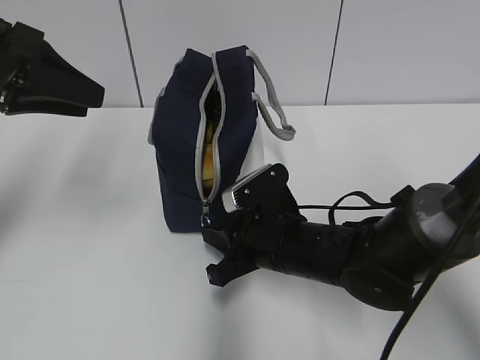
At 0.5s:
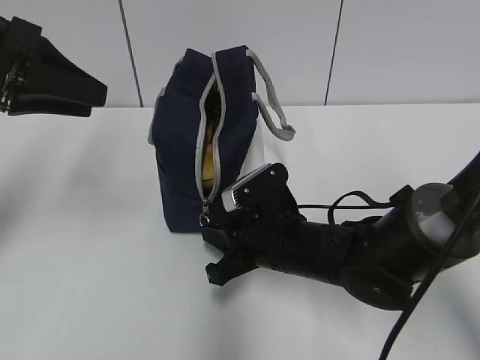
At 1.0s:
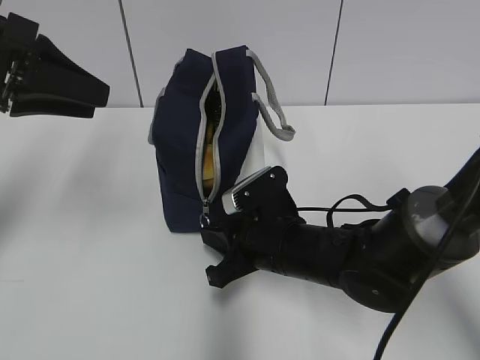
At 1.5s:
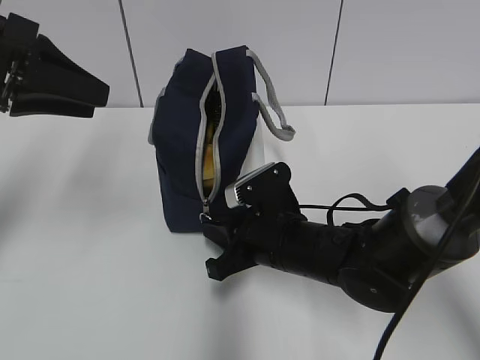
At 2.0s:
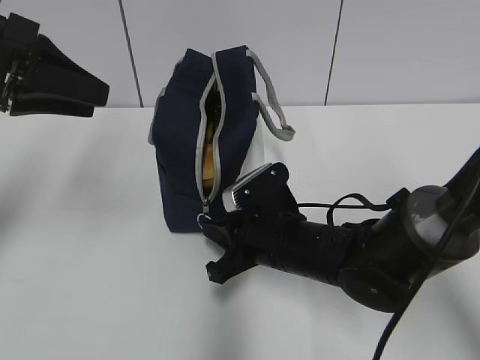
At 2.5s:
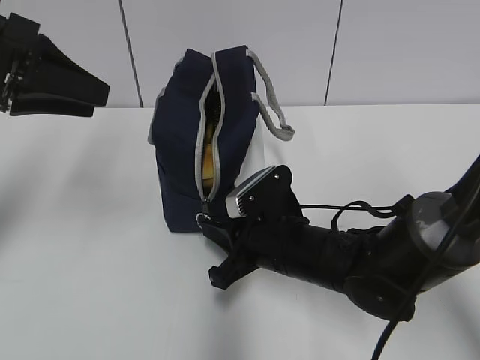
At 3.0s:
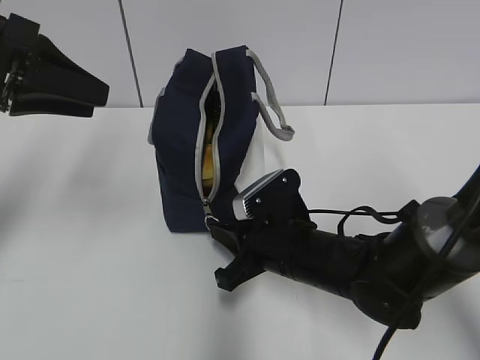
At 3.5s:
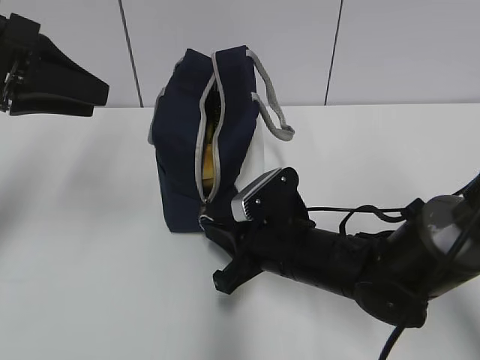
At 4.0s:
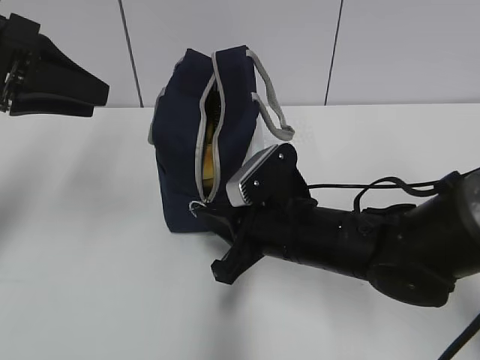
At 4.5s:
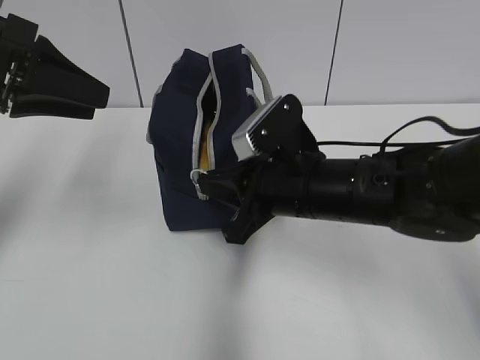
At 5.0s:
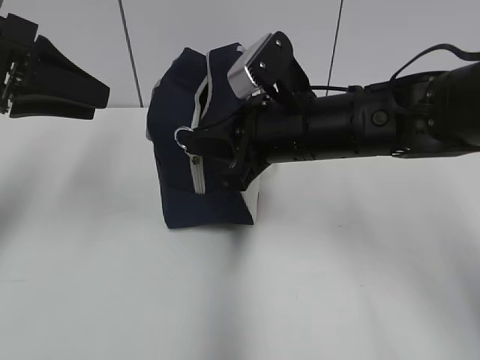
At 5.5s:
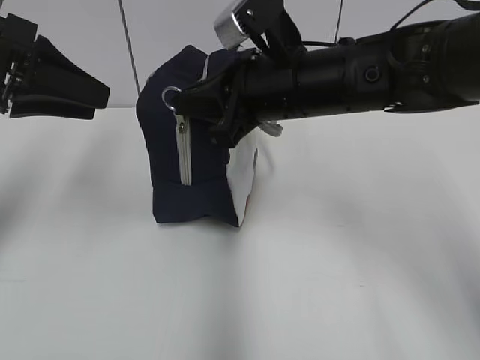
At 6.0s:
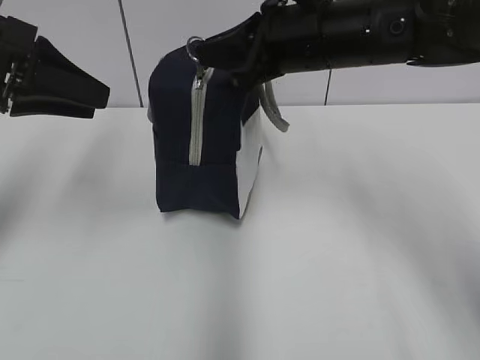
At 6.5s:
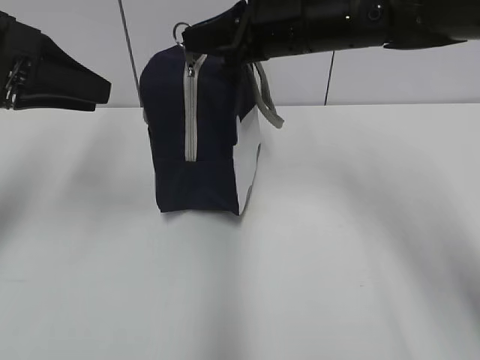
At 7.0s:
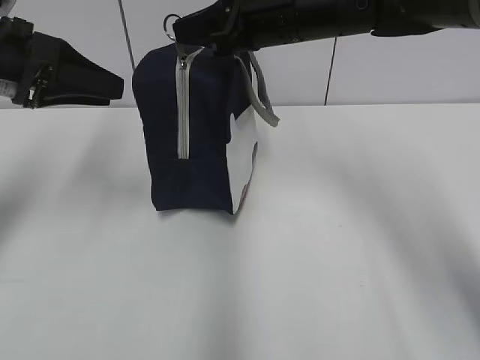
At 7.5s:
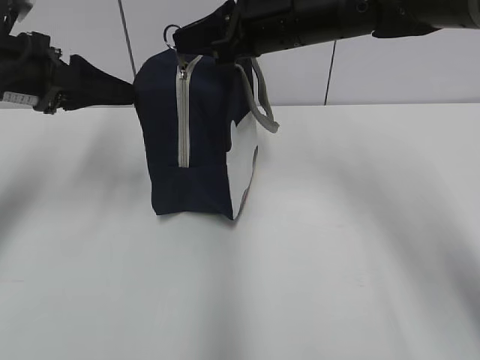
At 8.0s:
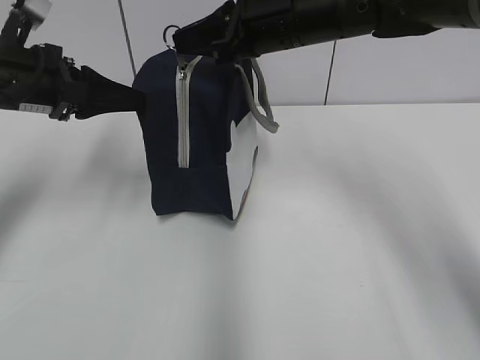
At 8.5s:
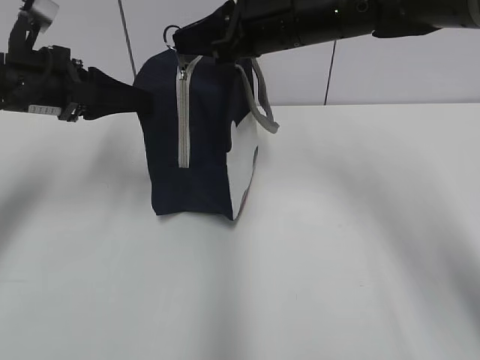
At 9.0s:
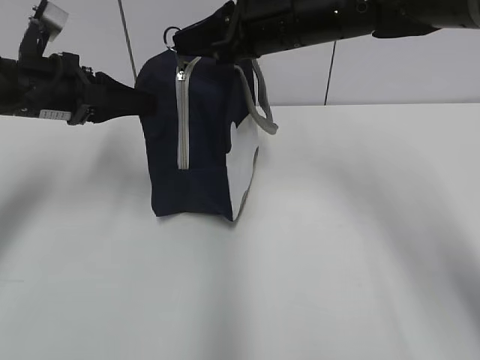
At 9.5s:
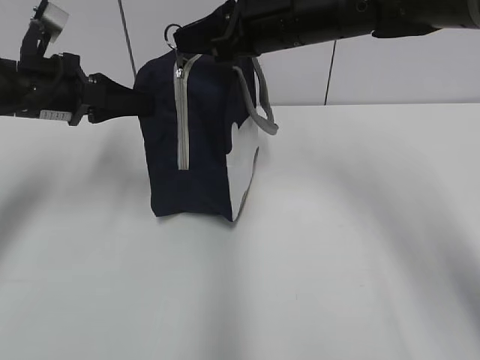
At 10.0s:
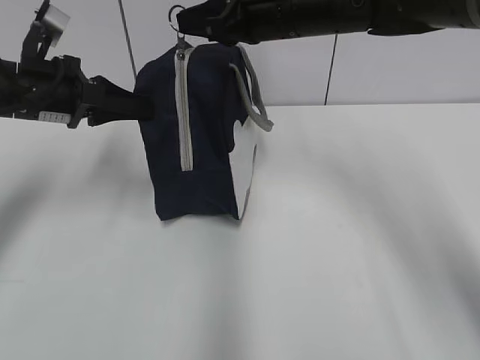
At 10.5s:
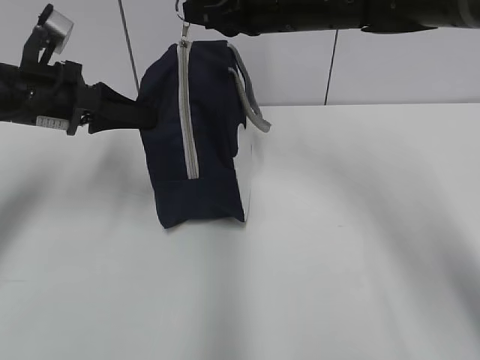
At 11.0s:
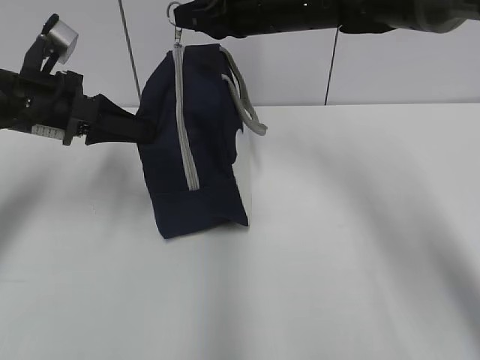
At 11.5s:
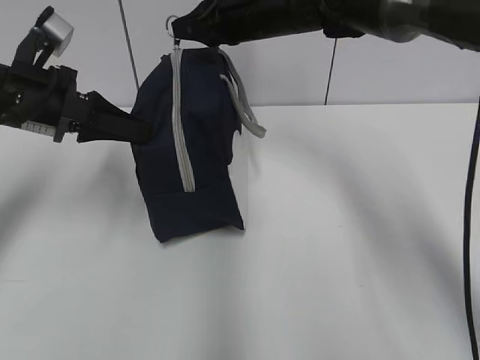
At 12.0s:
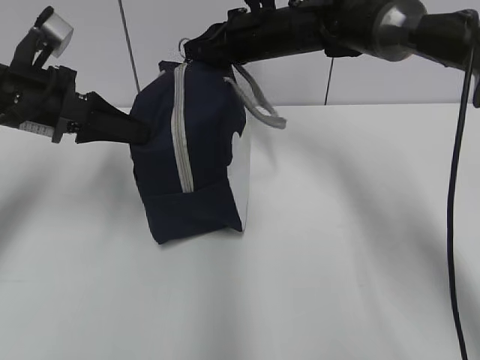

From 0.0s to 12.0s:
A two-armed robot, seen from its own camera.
From 0.0s to 4.0s: The grippers make only small movements.
From 4.0s to 6.0s: The right gripper shifts about 20 cm upward and forward.
From 6.0s to 8.0s: The left gripper goes some 10 cm forward and downward.
From 8.0s to 10.0s: The left gripper closes up.
From 10.0s to 12.0s: The right gripper moves forward and downward, some 10 cm.

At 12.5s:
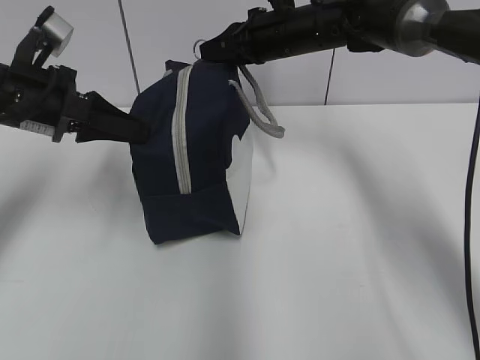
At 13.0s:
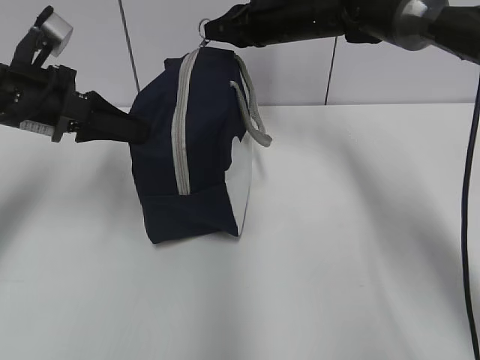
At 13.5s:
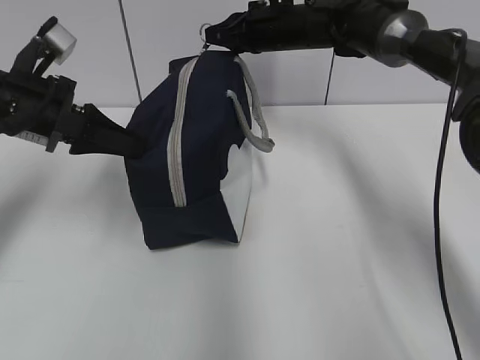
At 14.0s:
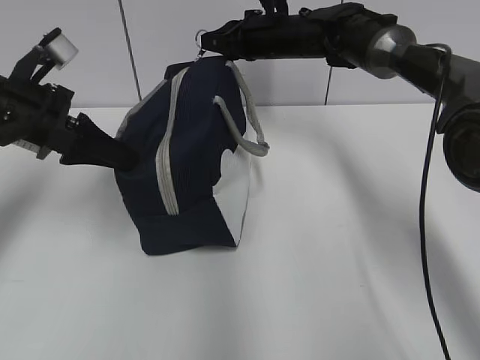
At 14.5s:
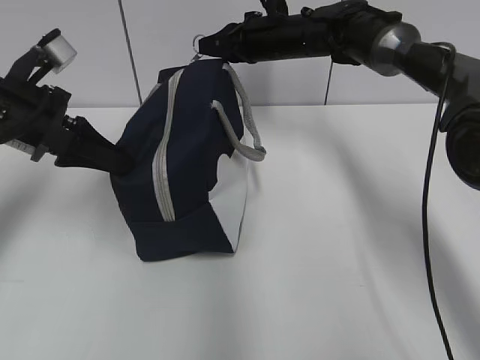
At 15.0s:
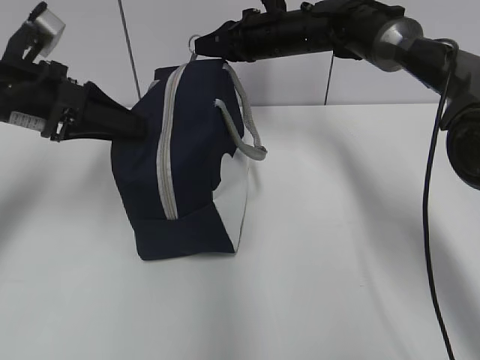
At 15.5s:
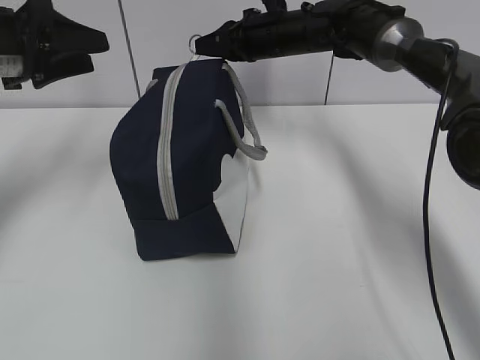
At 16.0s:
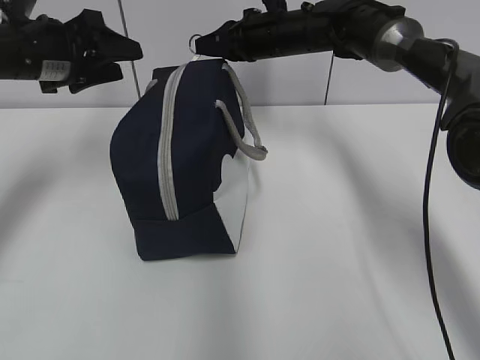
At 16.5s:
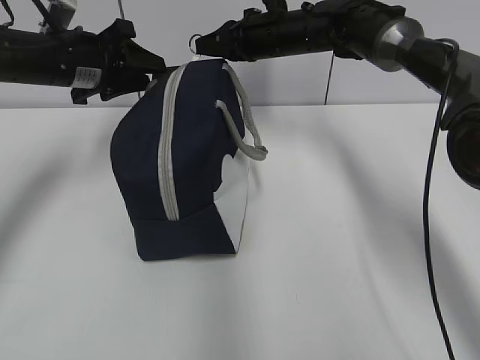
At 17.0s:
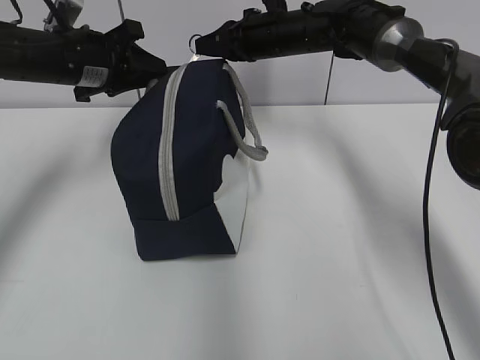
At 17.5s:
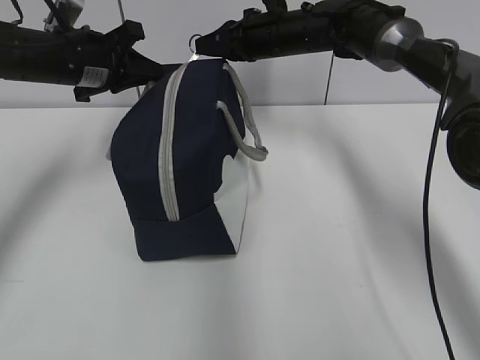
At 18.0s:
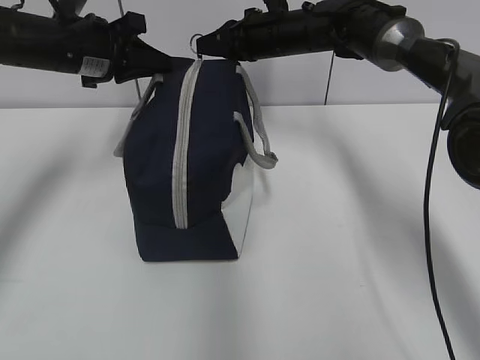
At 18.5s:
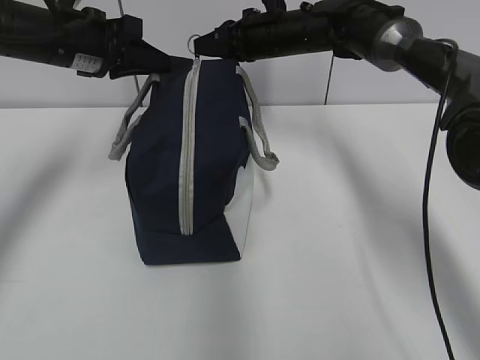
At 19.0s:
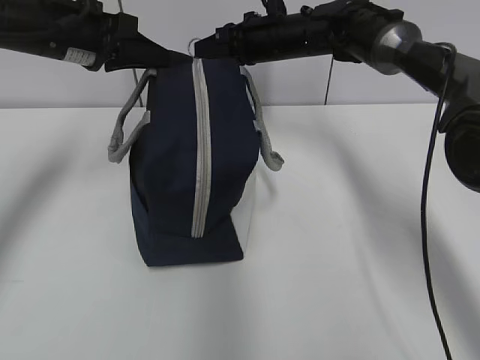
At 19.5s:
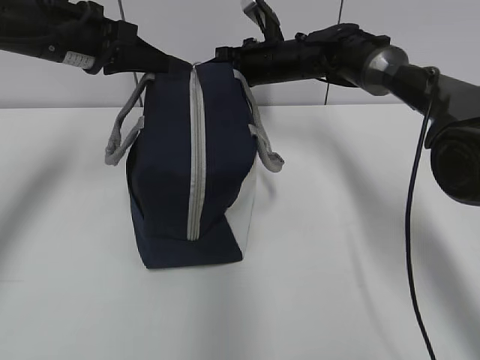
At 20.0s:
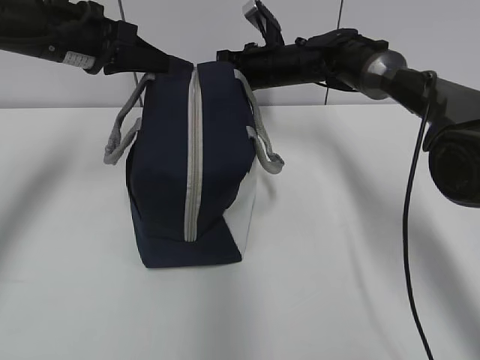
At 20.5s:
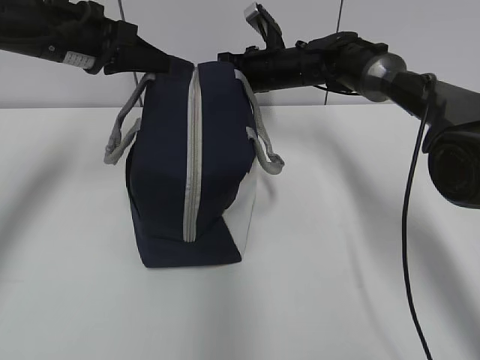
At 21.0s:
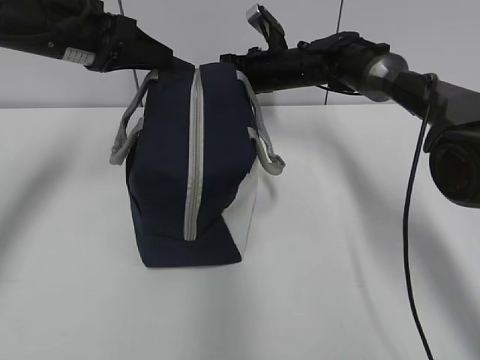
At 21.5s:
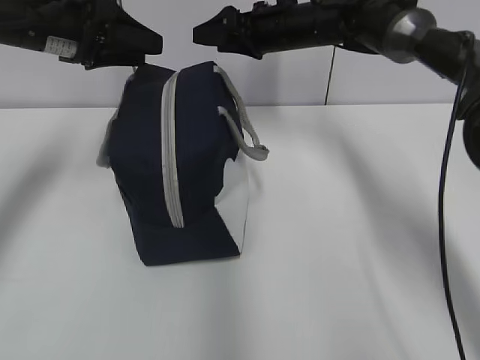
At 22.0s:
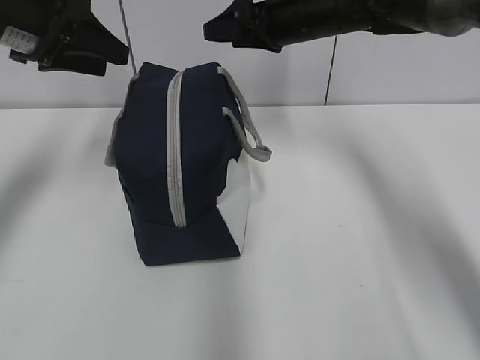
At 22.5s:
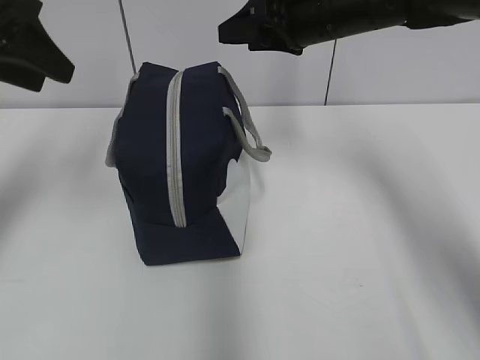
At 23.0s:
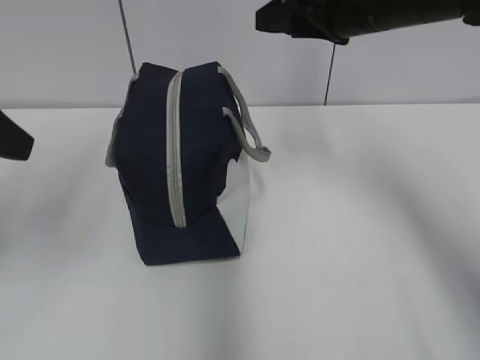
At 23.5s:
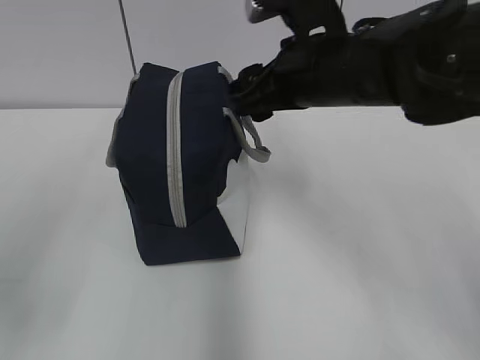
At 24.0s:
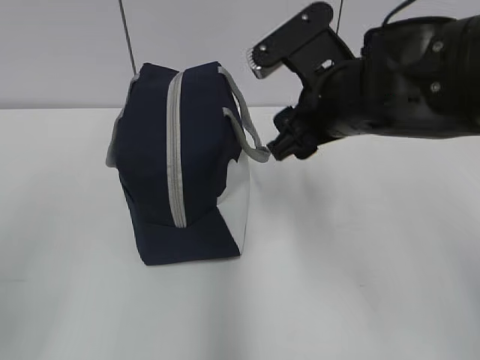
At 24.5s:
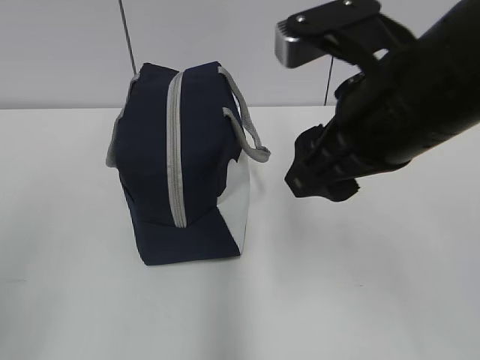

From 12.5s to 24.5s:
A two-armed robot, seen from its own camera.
From 14.5s to 16.5s: The left gripper is displaced forward by about 10 cm, and opens its fingers.
From 16.5s to 18.5s: The left gripper closes up.
From 18.5s to 20.5s: The right gripper heads downward, covering approximately 5 cm.
From 20.5s to 22.5s: The left gripper heads backward, upward and to the left, covering some 10 cm, and opens. The right gripper goes about 15 cm upward and backward, and opens.
From 22.5s to 24.5s: Both grippers move backward, approximately 25 cm.

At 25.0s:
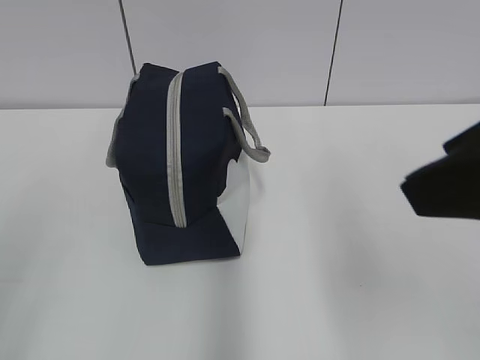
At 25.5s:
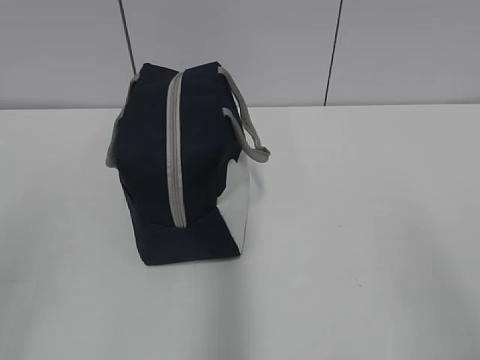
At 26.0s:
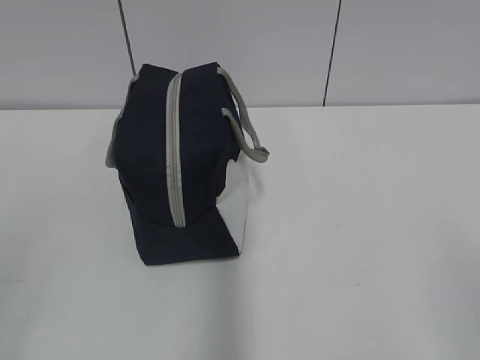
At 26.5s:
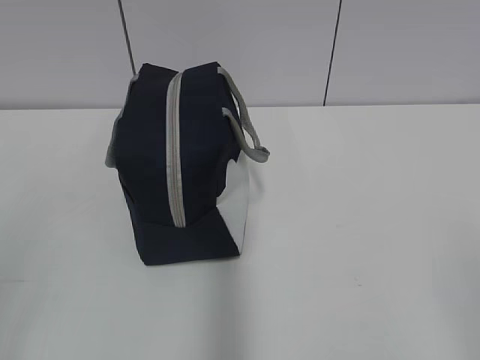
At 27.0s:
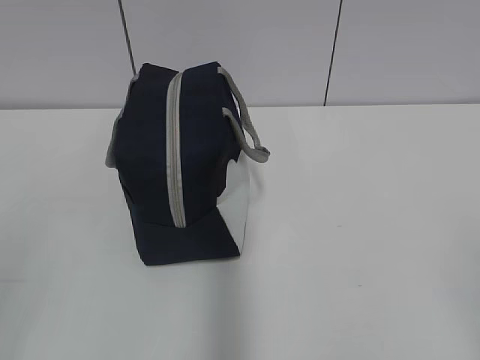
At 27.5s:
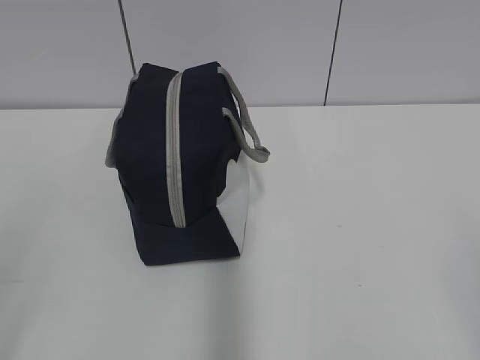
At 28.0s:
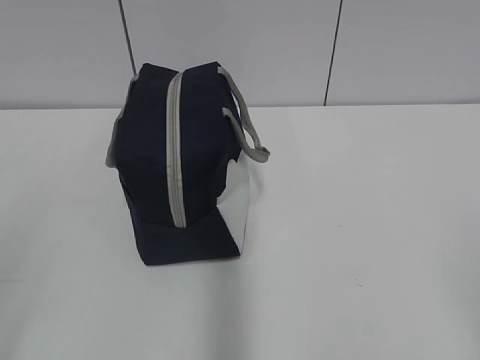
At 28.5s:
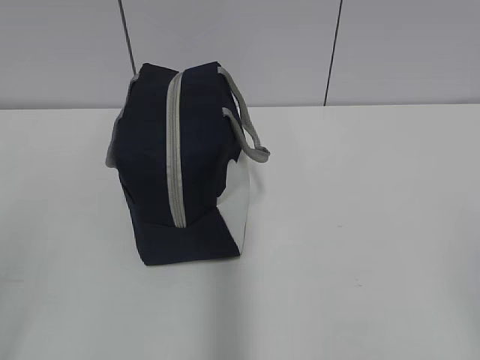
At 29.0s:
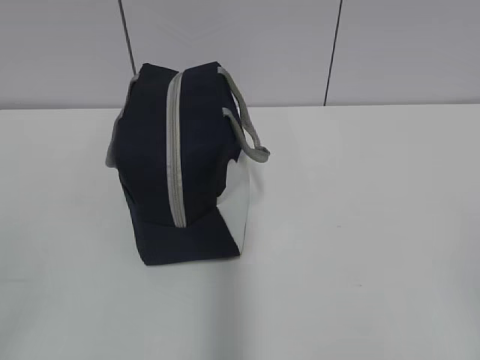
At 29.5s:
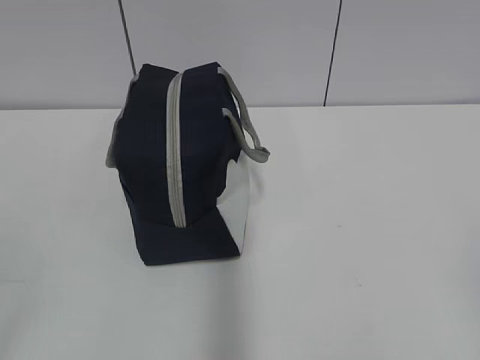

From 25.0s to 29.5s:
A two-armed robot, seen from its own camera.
From 25.0s to 27.0s: The right gripper goes roughly 20 cm backward, to the right and downward.
